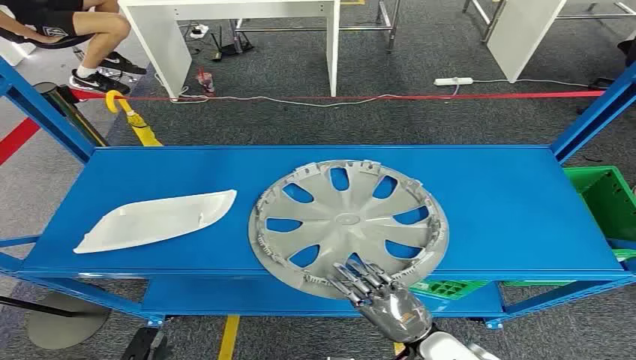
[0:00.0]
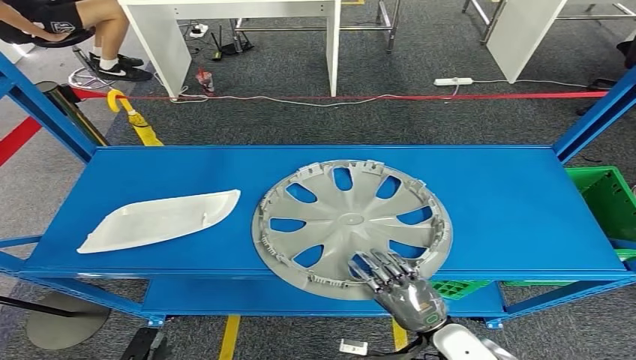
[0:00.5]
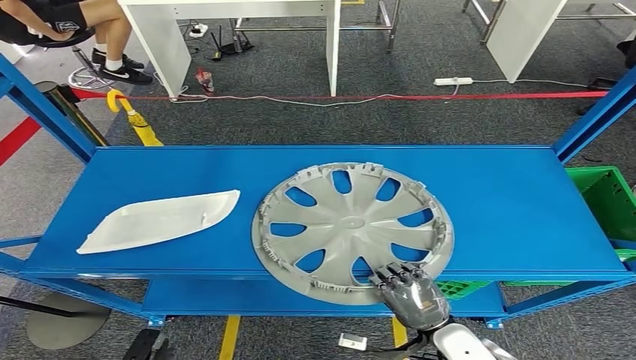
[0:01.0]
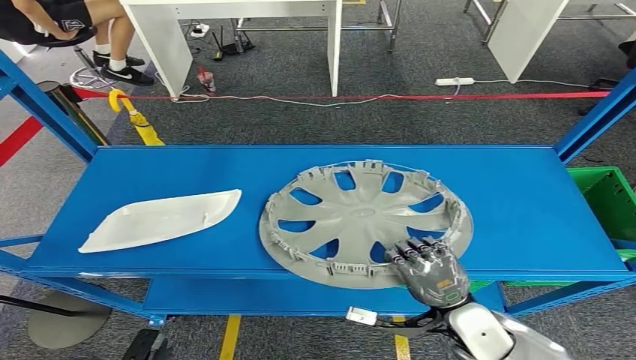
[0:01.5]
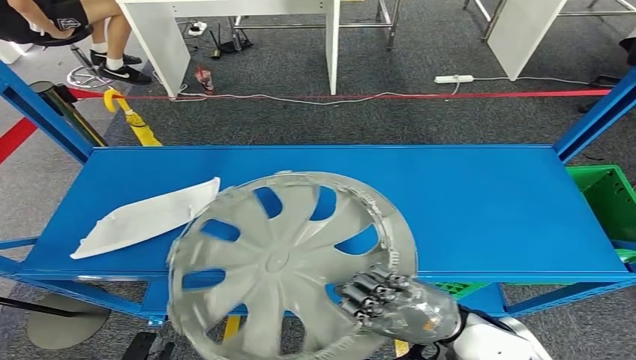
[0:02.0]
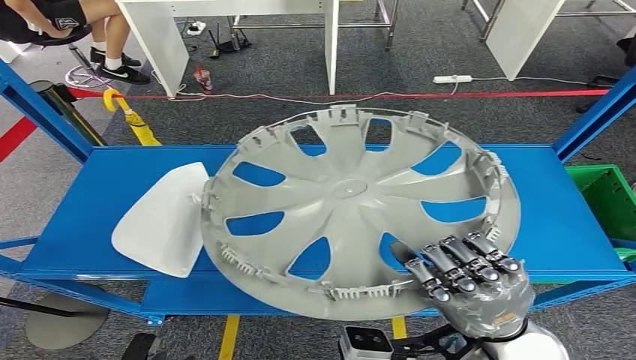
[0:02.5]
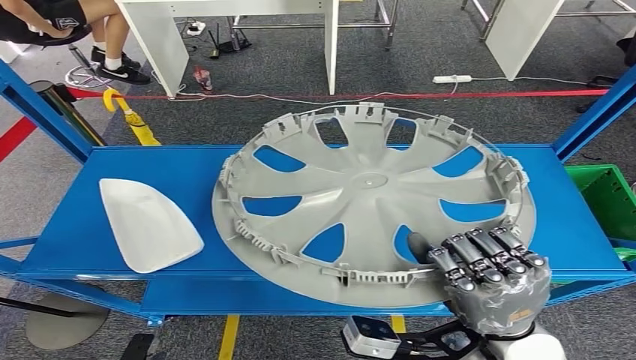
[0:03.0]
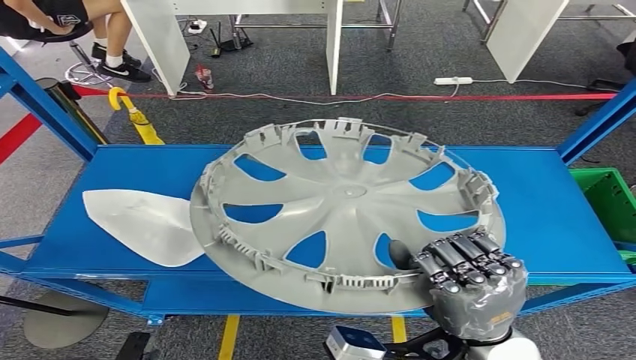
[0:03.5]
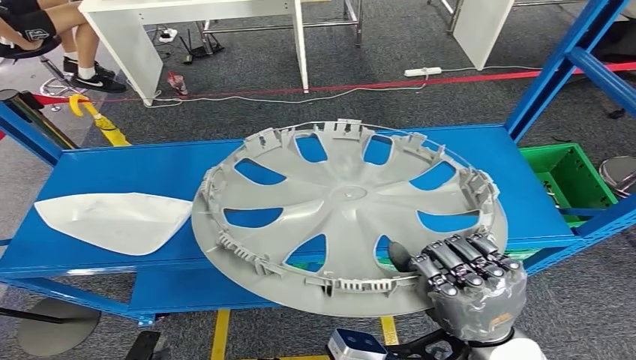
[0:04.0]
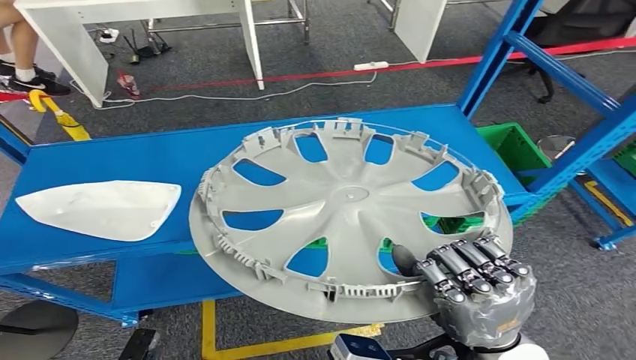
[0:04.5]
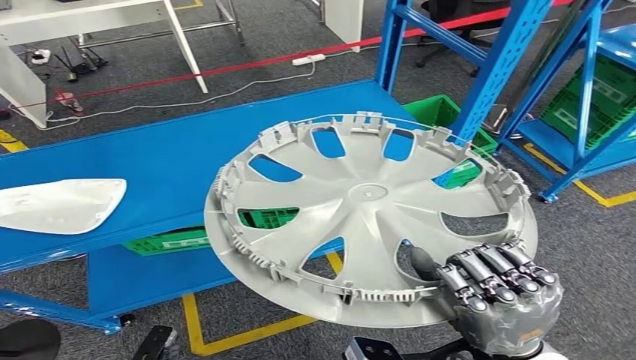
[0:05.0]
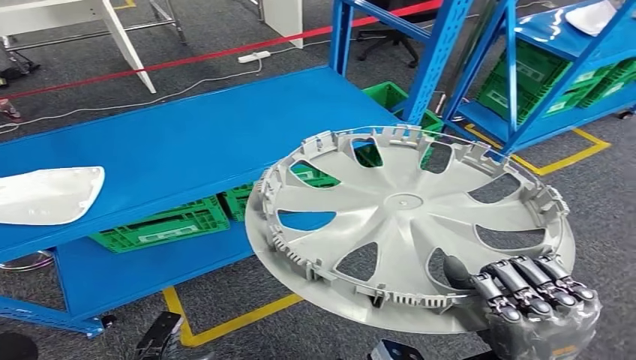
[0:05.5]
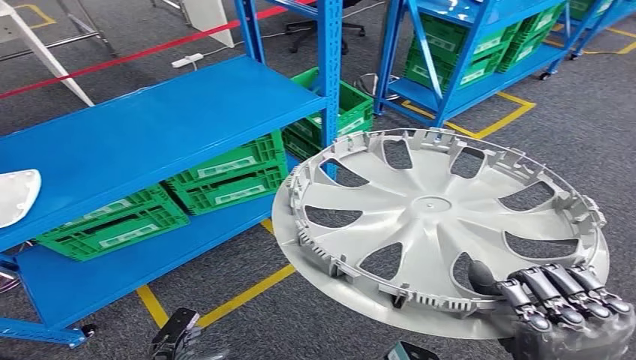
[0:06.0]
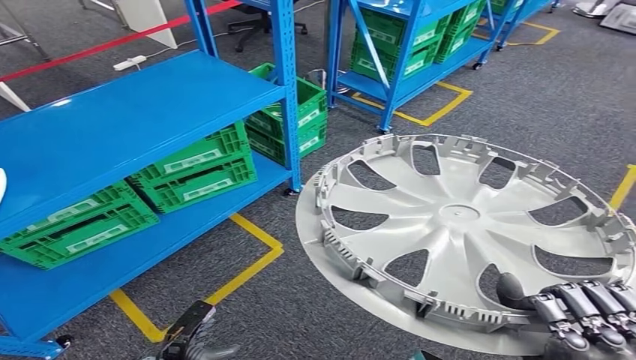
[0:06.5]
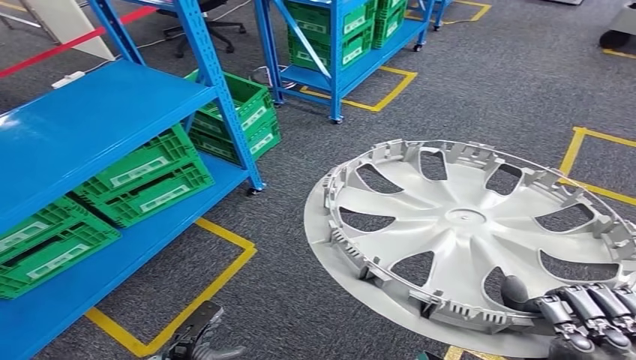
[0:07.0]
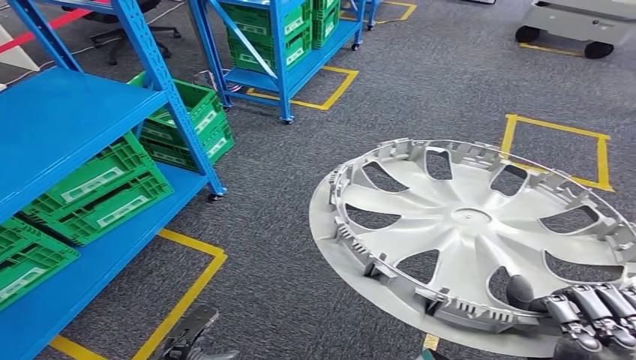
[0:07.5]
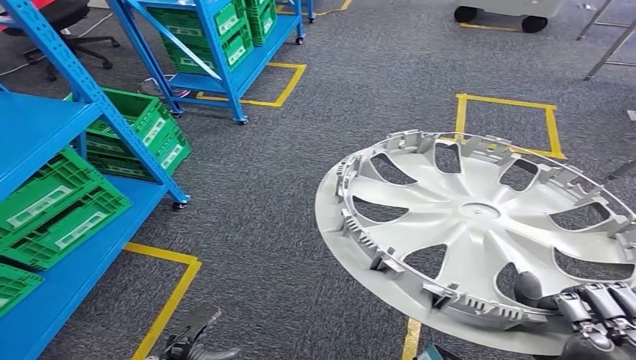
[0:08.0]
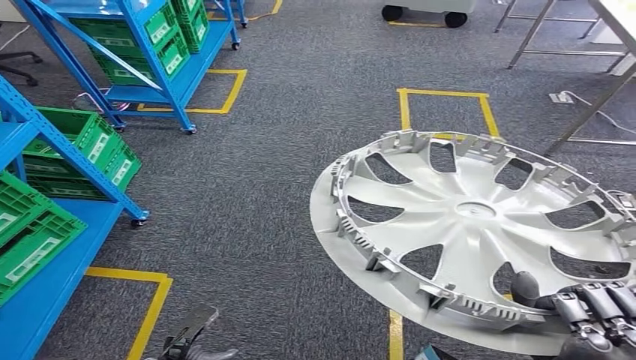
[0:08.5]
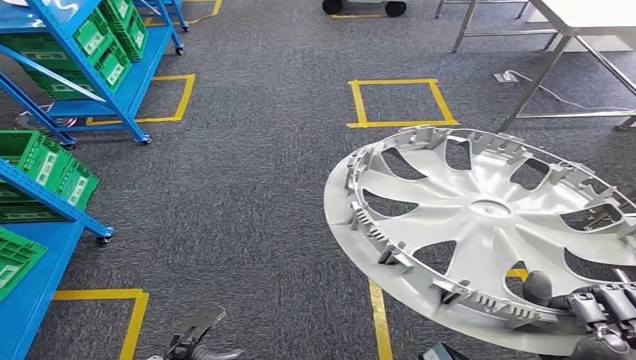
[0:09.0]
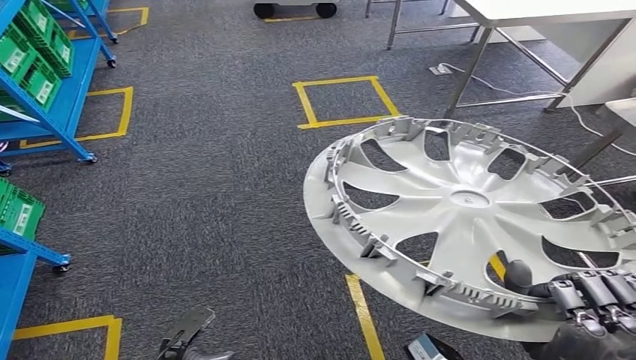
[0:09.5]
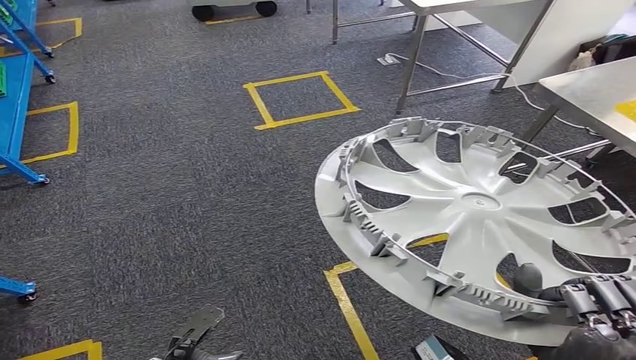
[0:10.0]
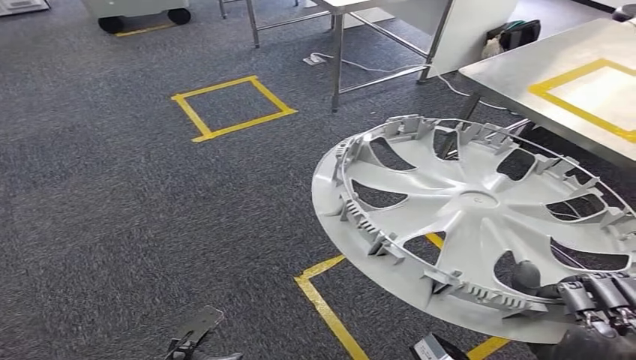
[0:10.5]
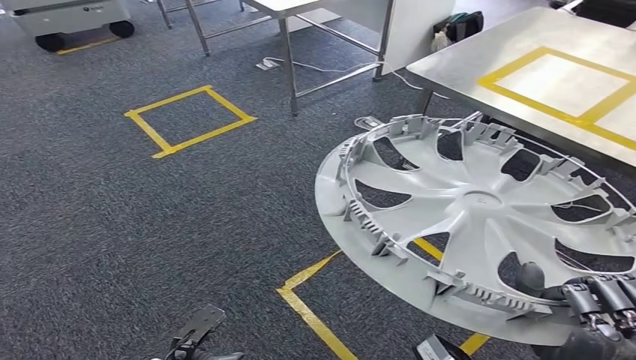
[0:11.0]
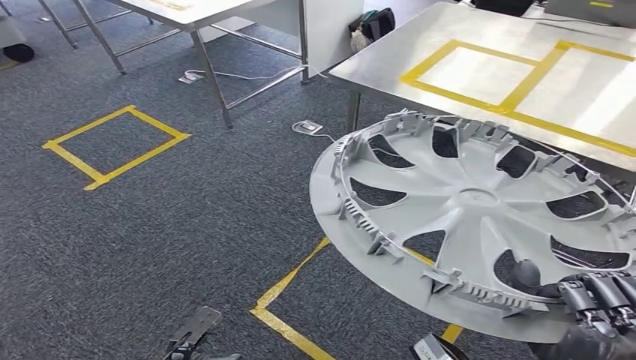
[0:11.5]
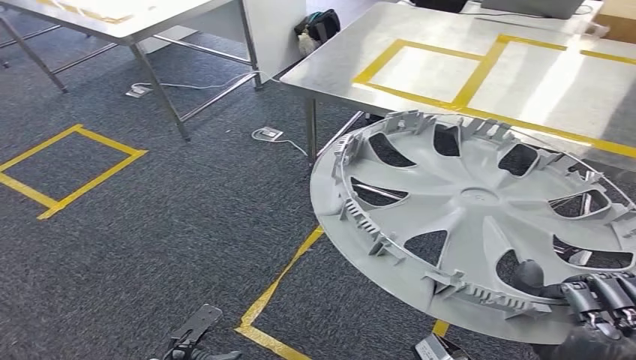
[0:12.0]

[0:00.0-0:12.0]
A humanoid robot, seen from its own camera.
Step, 0:00.0 to 0:03.5: Pick up the small component from the shelf.

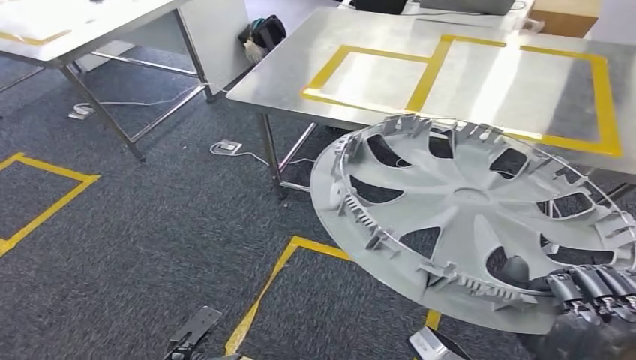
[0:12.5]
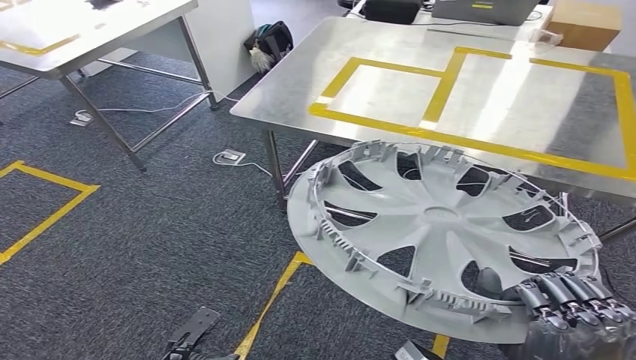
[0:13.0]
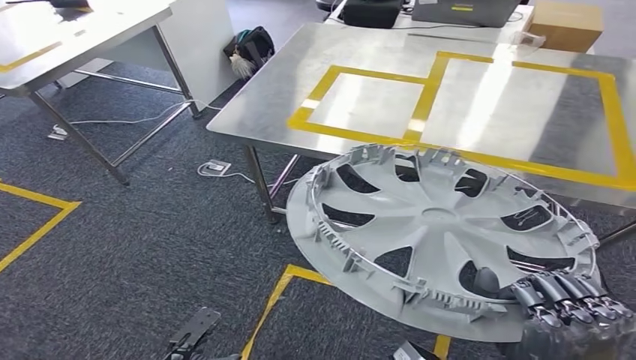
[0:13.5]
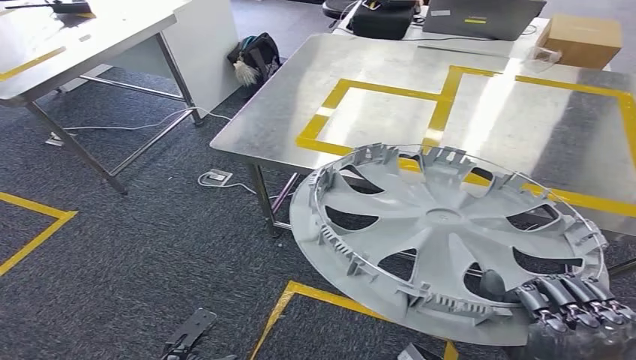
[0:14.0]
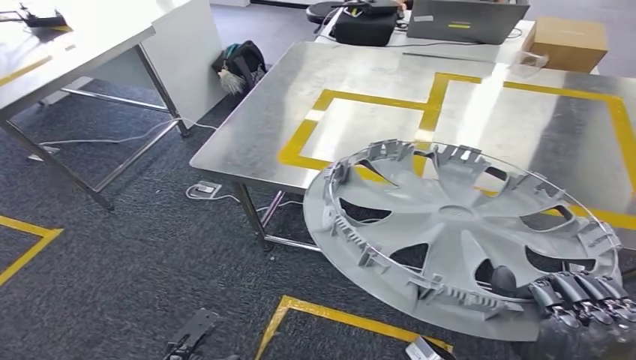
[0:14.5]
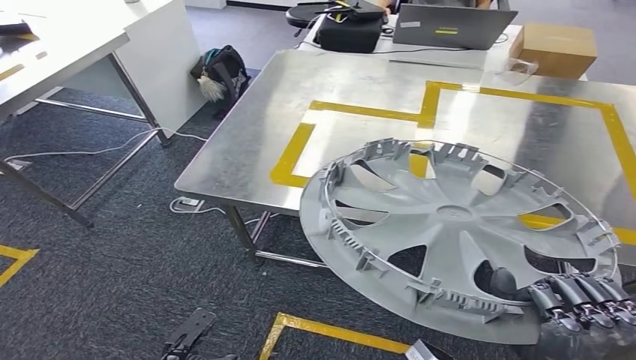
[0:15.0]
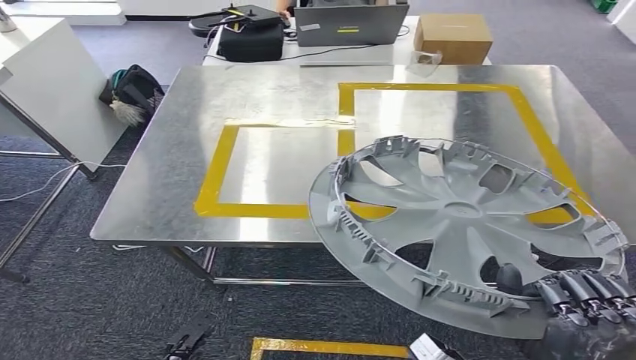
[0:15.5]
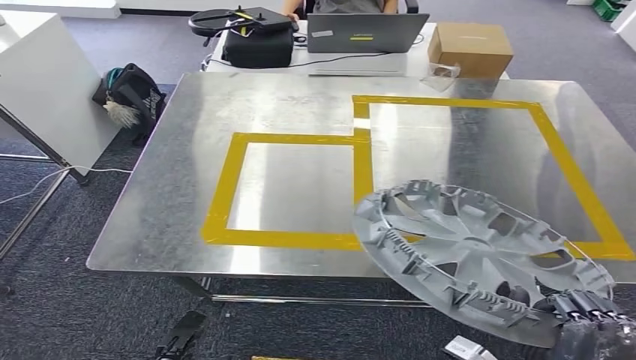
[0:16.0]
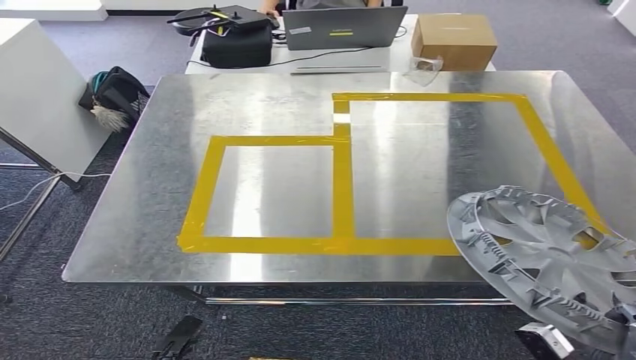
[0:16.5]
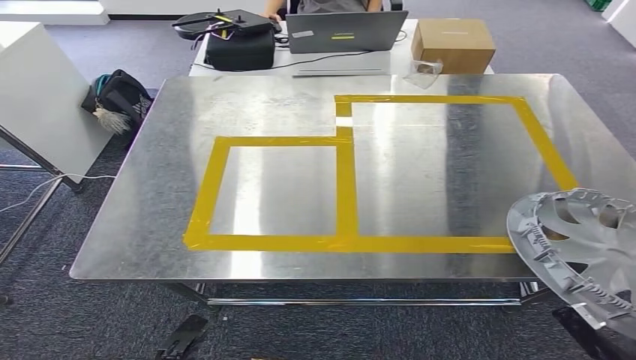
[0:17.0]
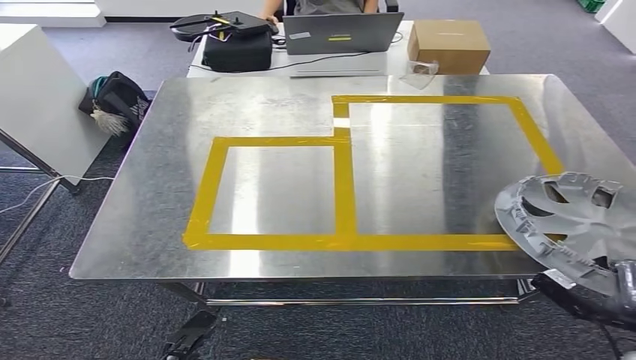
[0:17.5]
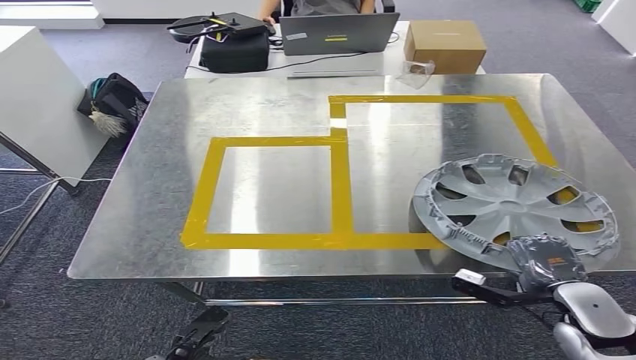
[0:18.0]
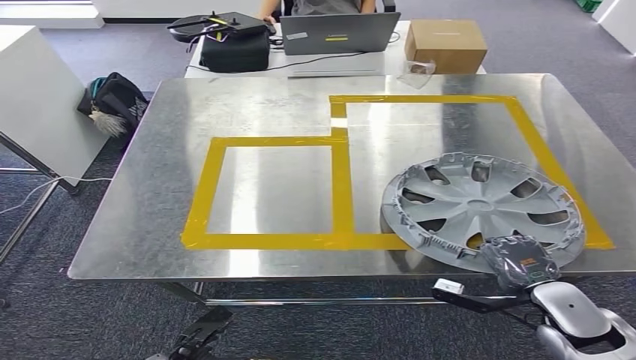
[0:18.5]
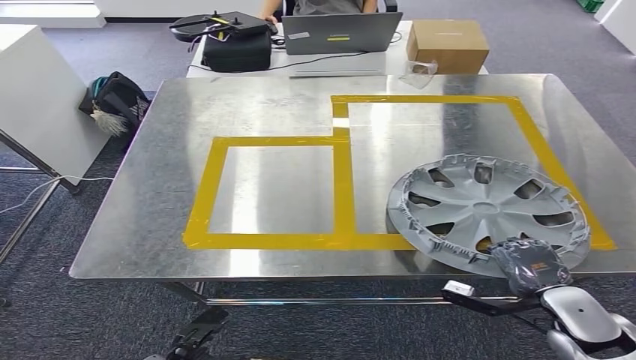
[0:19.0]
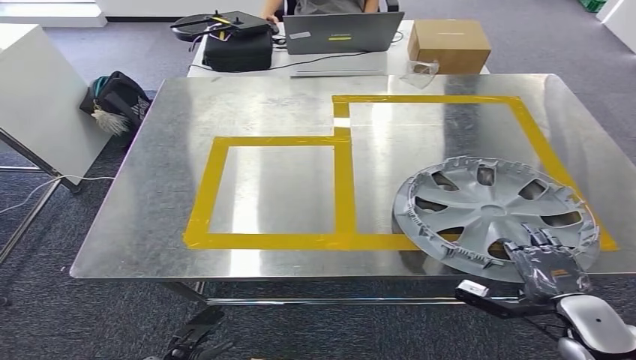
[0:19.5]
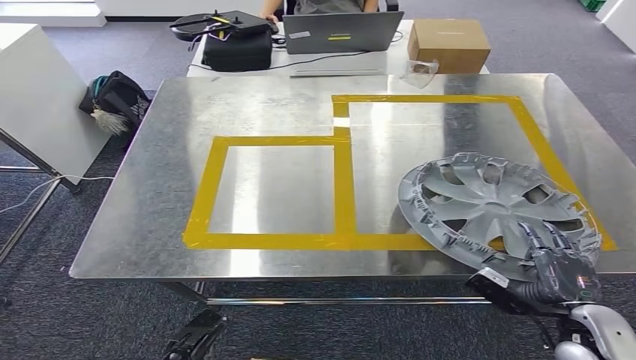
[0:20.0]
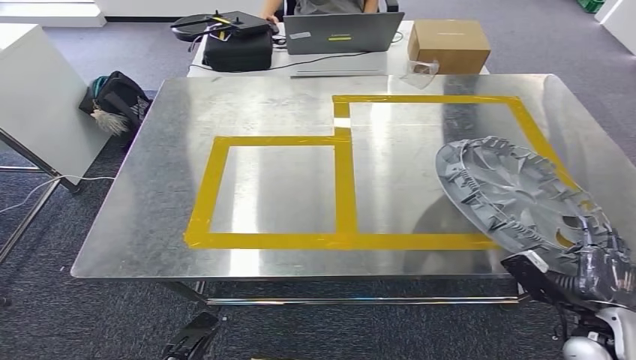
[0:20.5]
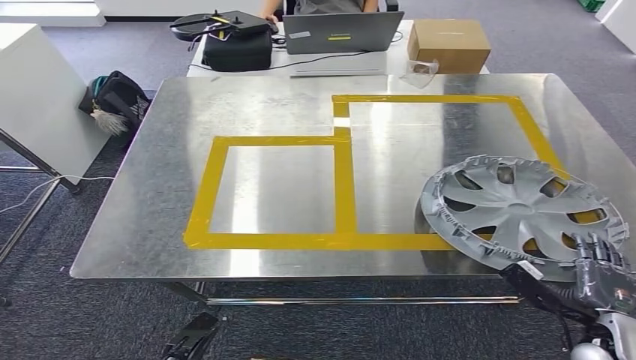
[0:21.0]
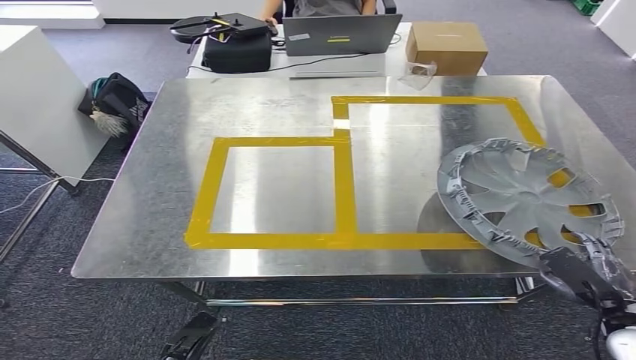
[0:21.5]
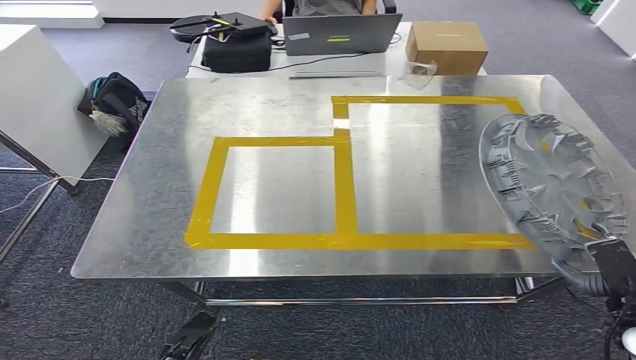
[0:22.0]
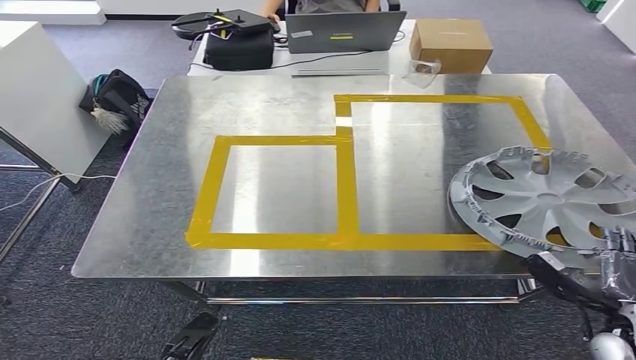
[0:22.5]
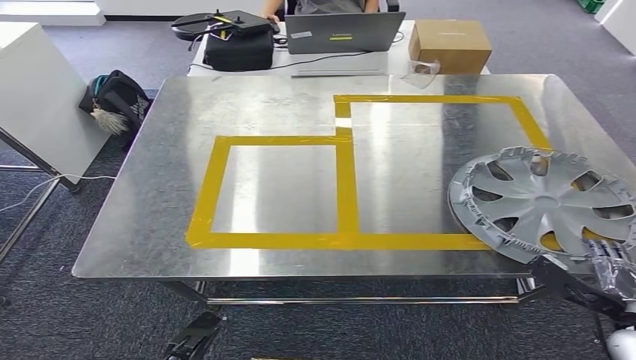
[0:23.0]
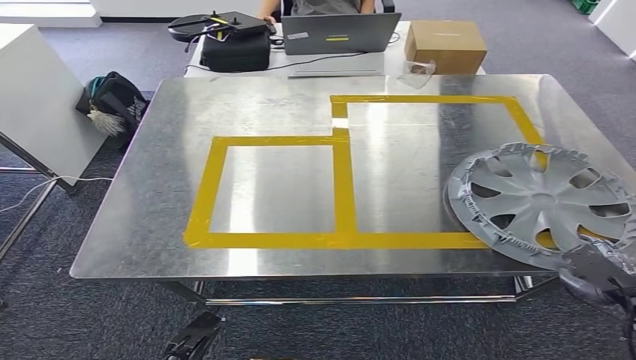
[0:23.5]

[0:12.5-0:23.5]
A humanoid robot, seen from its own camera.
Step, 0:12.5 to 0:14.5: Move the small component to the workbench.
0:18.0 to 0:20.0: The two hands keep their place.
0:20.0 to 0:21.5: The right hand goes roughly 25 cm to the right, downward and forward.
